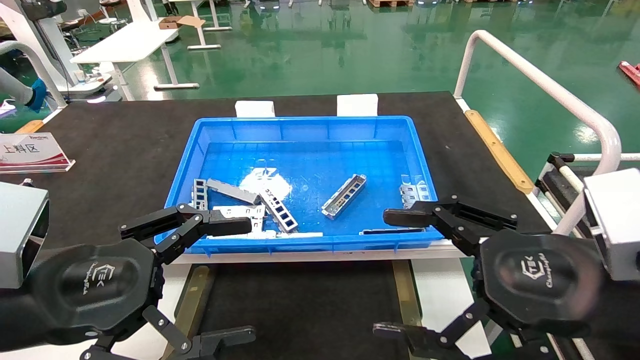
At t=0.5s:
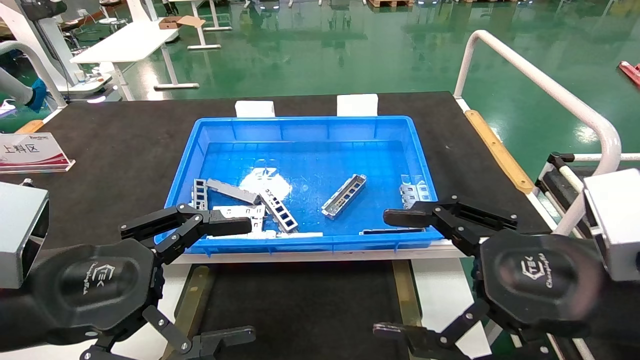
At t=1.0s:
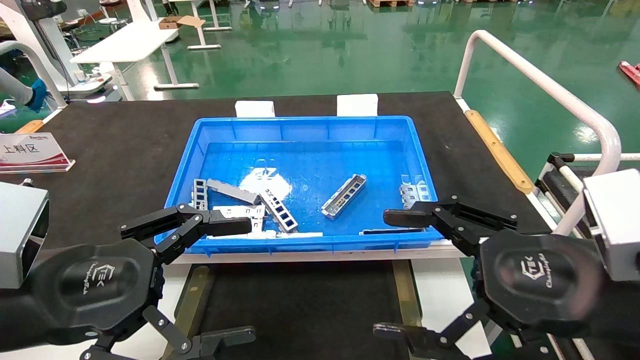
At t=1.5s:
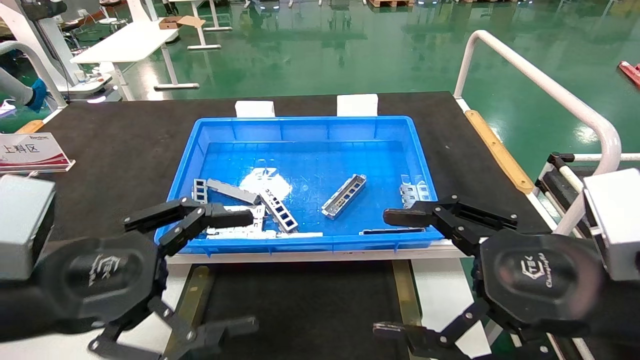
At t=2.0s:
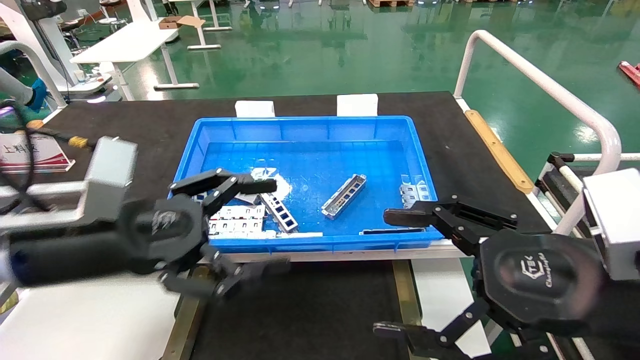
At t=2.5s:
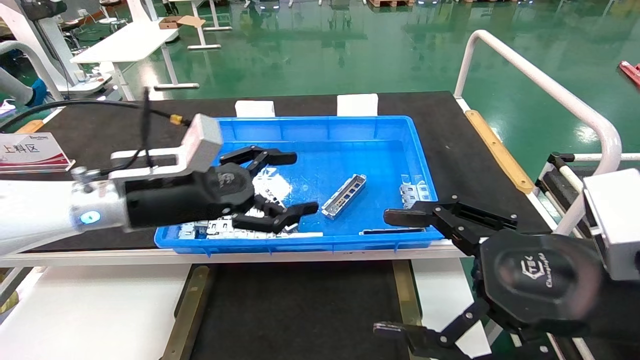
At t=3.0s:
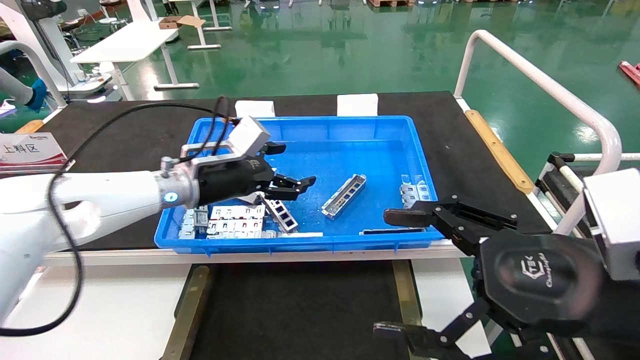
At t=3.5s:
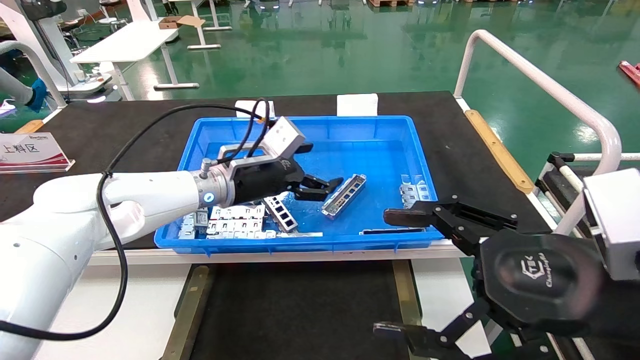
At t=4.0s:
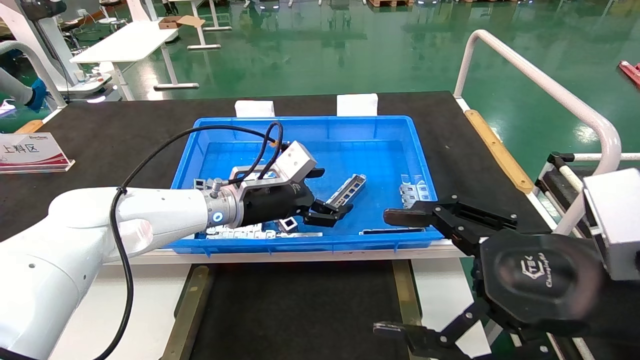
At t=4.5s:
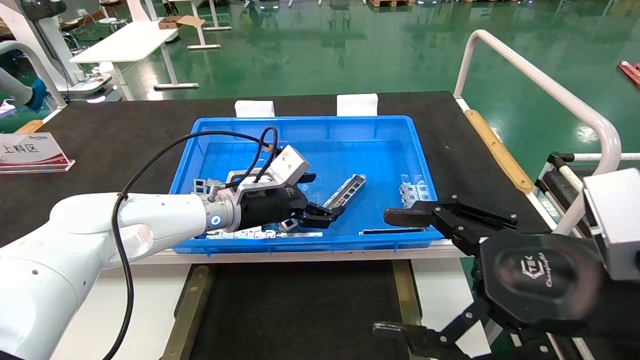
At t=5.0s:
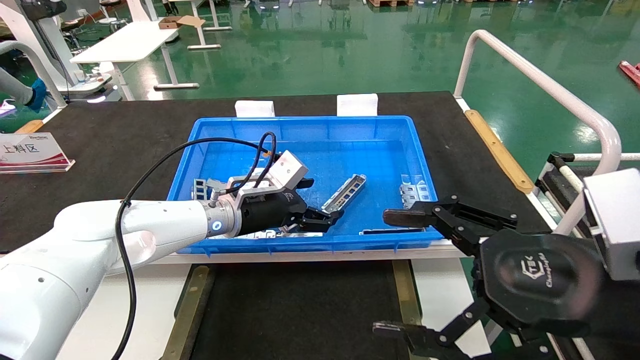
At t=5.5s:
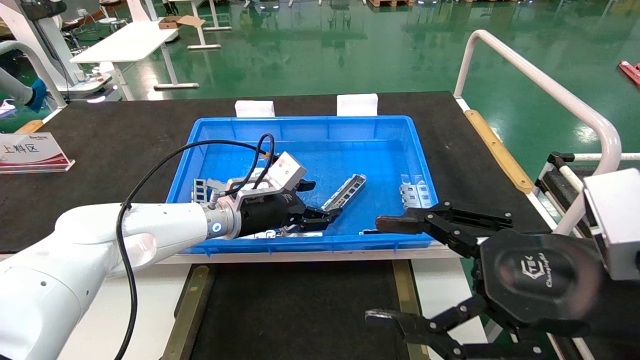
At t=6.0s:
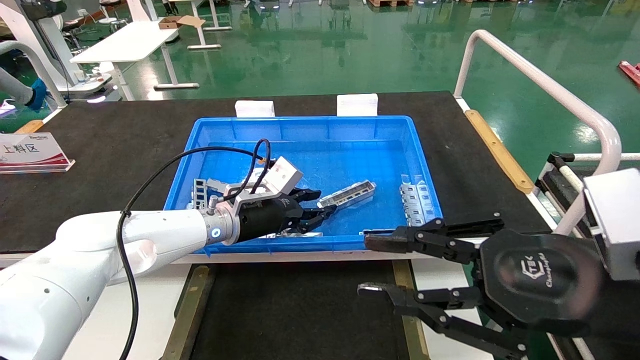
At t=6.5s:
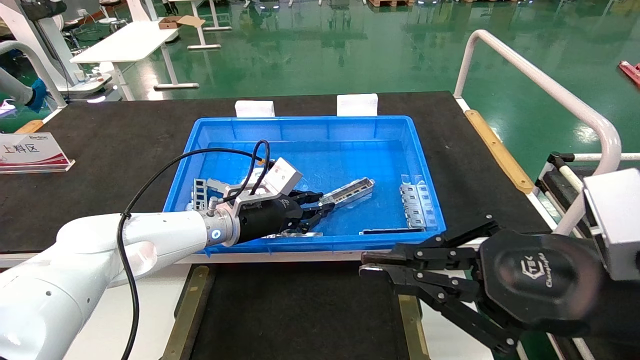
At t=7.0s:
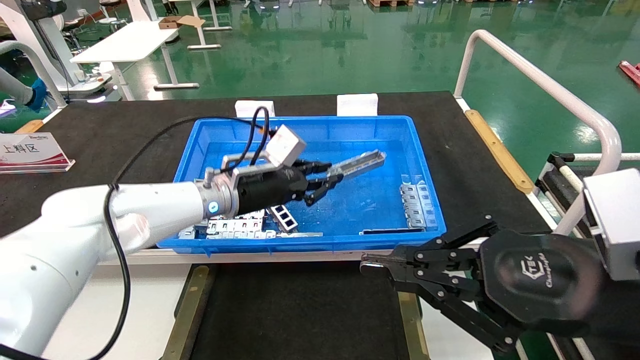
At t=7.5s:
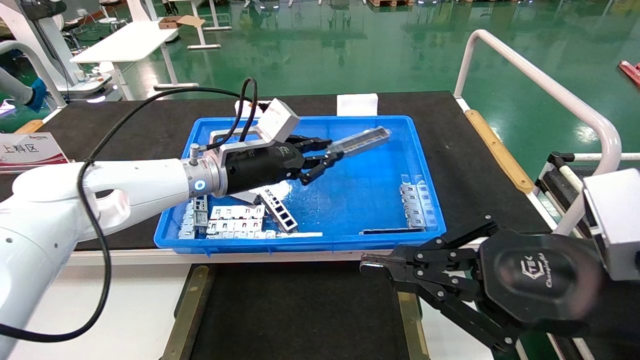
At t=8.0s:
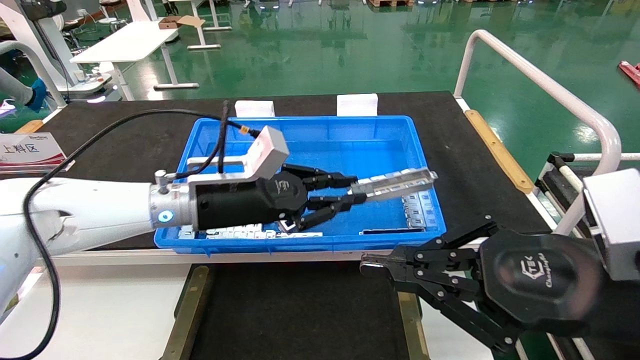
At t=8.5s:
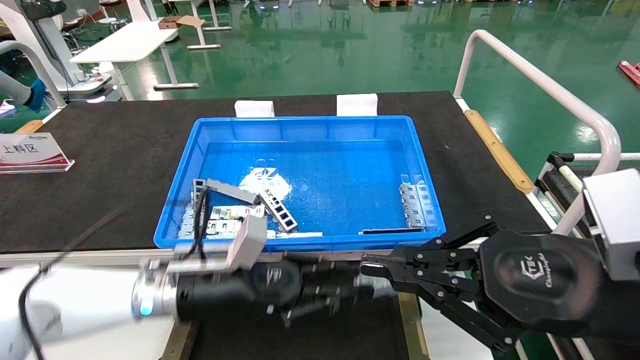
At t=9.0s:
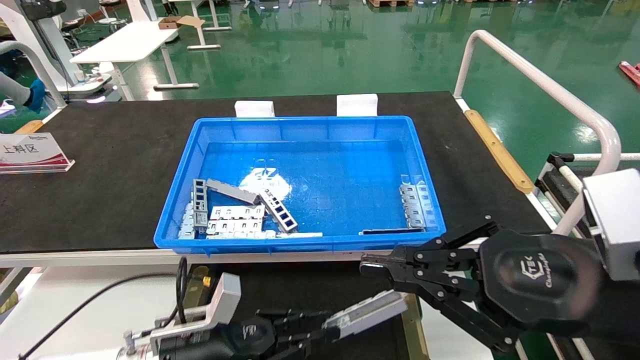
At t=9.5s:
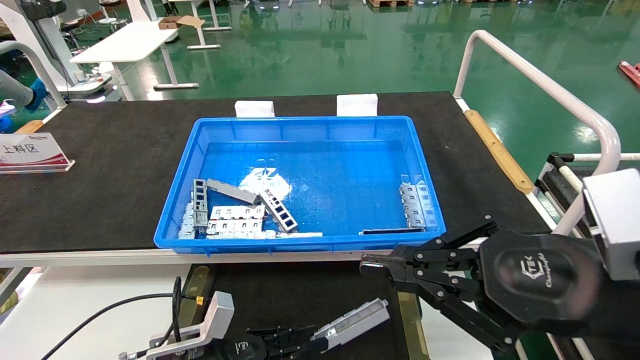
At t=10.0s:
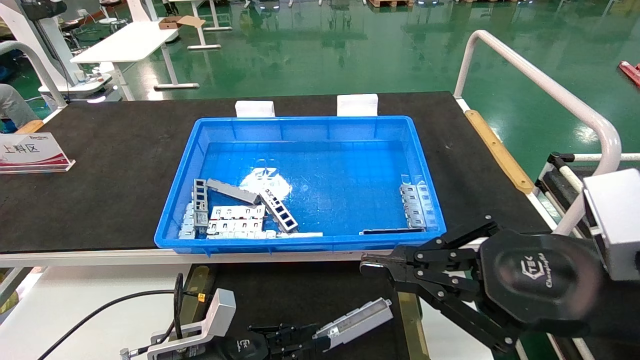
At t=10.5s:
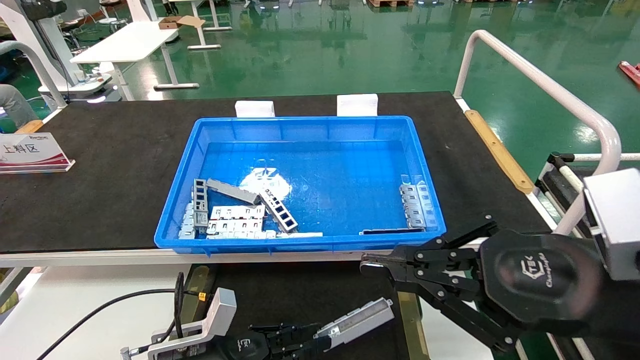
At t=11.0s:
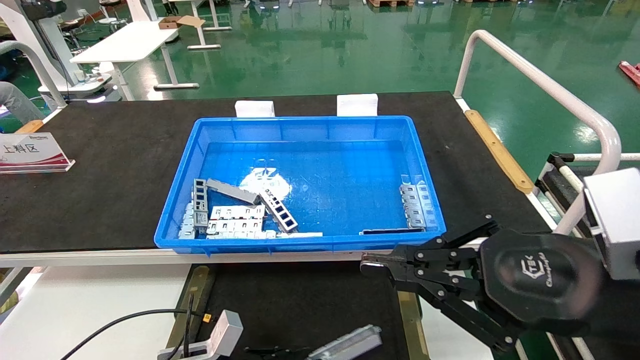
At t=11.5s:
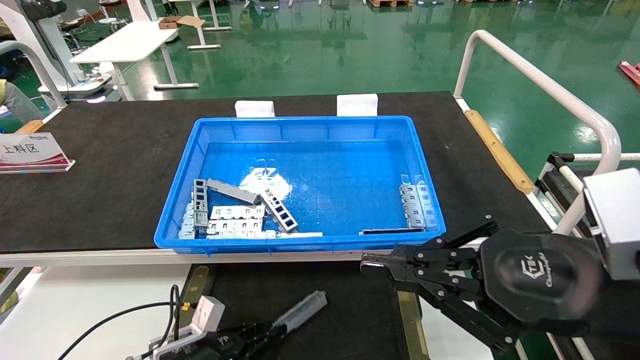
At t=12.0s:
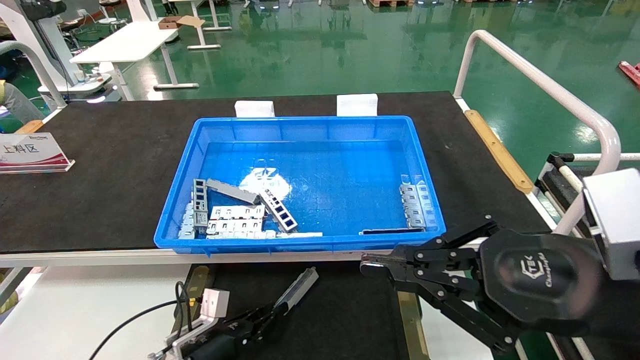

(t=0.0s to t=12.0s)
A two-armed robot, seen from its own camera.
Task of the whole recording: Grasp the part with one hand and place it on the black container.
Step, t=2.0s - t=6.0s: Pick up the front USB bracket from the feeding area.
t=0.0s - t=2.0s: The left gripper heads forward, covering about 5 cm.
t=2.0s - t=4.0s: The left gripper shifts roughly 25 cm forward and to the right.
t=4.0s - t=6.0s: The left gripper closes up. Meanwhile the right gripper closes up.
t=6.0s - t=8.0s: The right gripper closes, while the left gripper goes about 10 cm backward and upward, and closes.
t=8.0s - t=10.0s: The left gripper shifts roughly 25 cm downward.
t=10.0s - t=12.0s: The left gripper heads downward and forward, covering about 10 cm.

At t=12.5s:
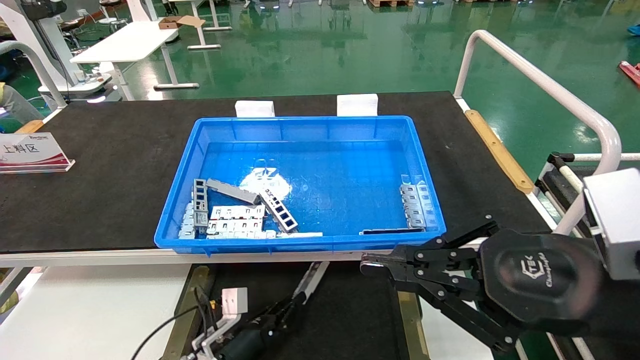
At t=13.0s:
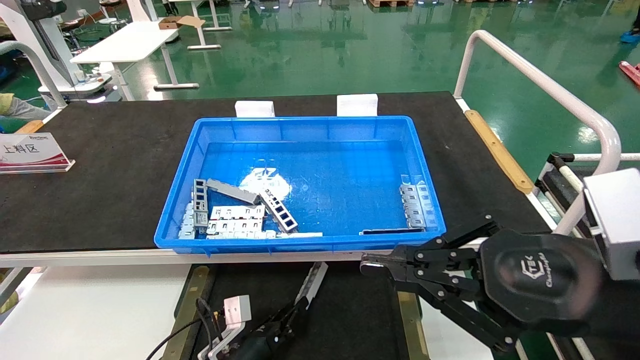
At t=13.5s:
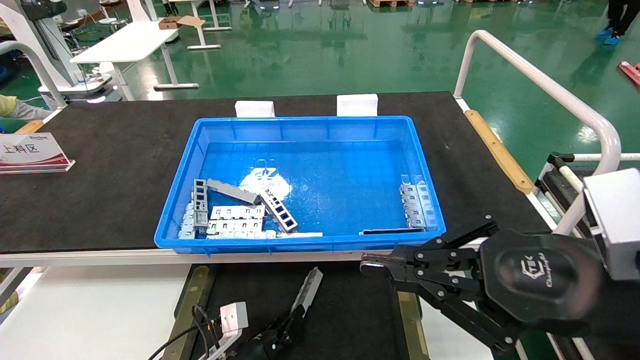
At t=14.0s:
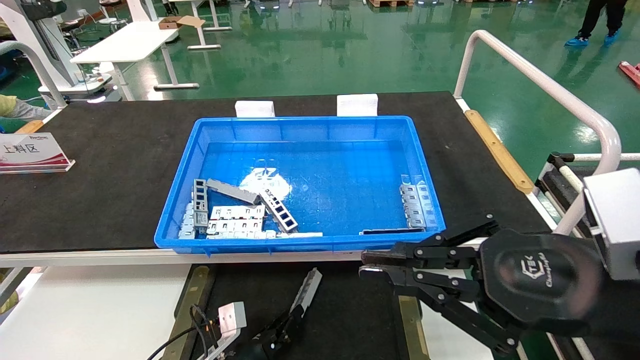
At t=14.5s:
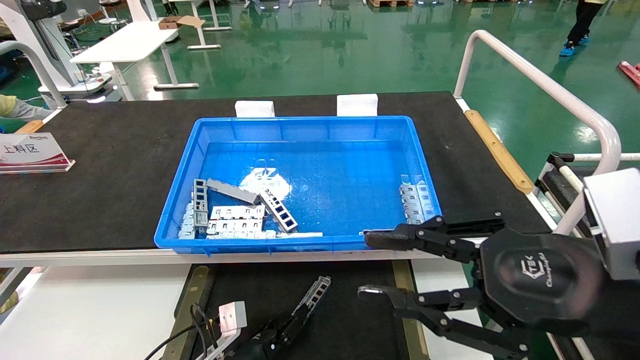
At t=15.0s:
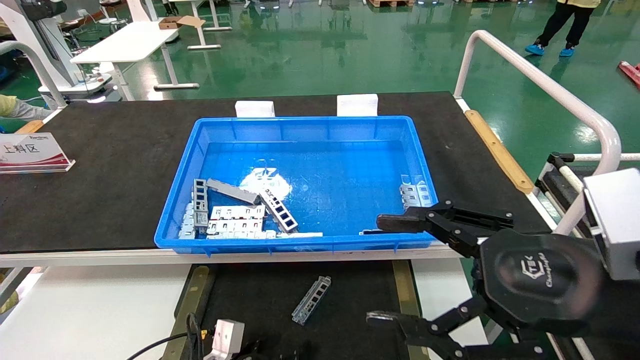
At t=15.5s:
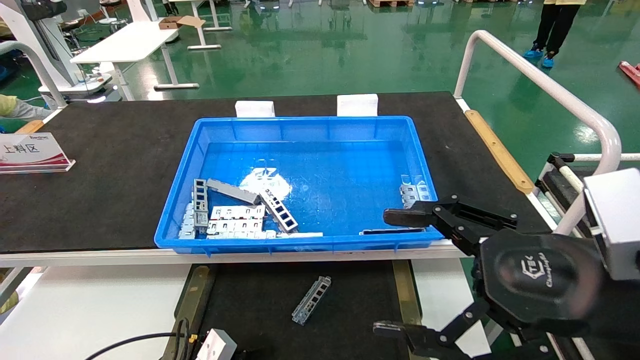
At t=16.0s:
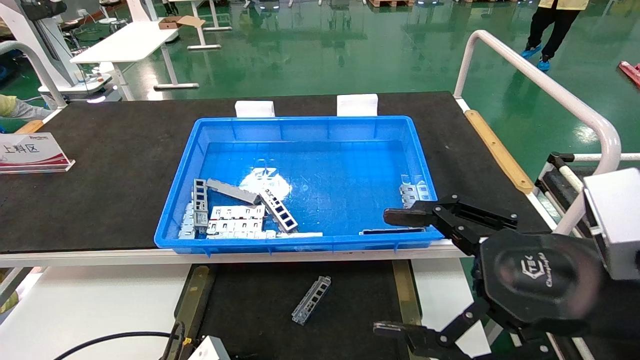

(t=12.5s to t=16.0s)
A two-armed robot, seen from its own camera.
Task of the whole recording: Grasp the part with one hand and place it on the black container.
Step, t=12.5s - t=14.5s: Place the front USB bracket into the box.
t=12.5s - t=14.5s: The grippers stay close to where they were, moving slightly.
t=14.5s - t=16.0s: The right gripper opens up; the left gripper shifts approximately 15 cm to the left, backward and upward, and opens.

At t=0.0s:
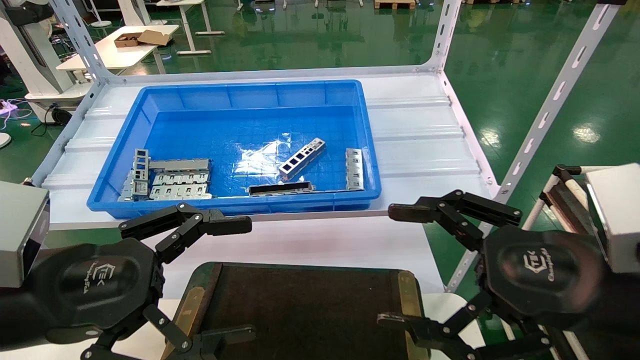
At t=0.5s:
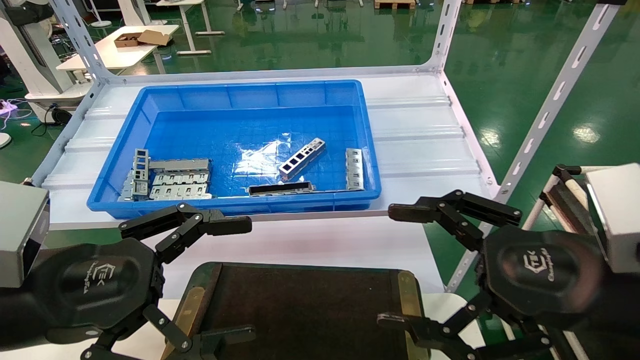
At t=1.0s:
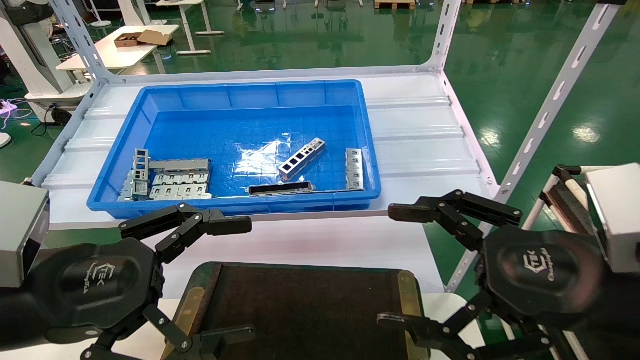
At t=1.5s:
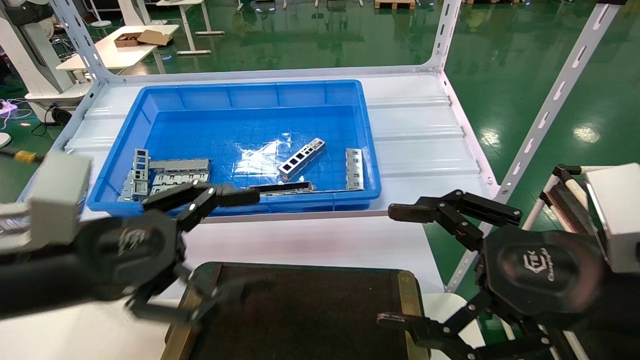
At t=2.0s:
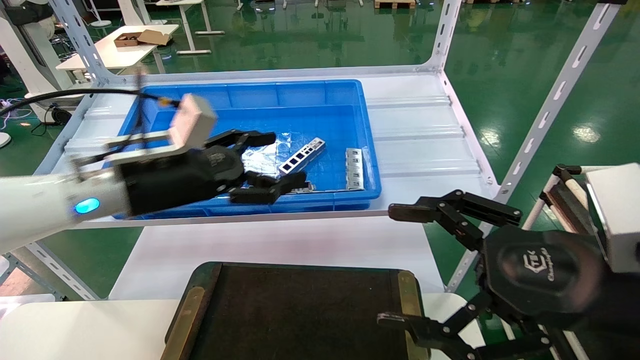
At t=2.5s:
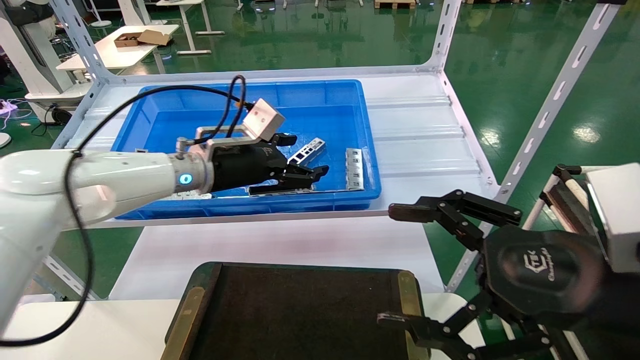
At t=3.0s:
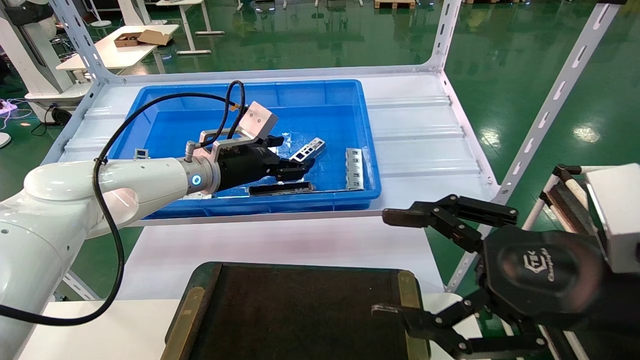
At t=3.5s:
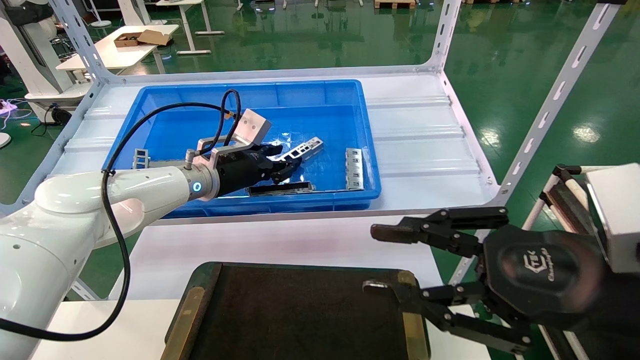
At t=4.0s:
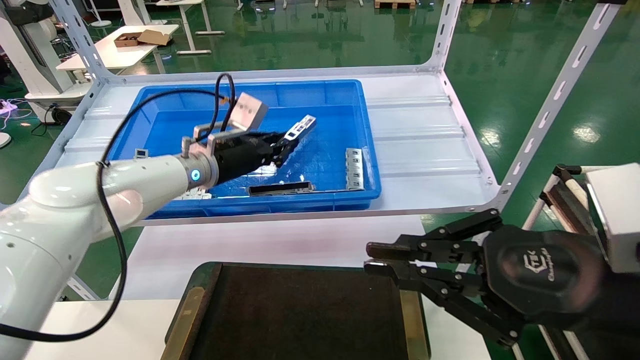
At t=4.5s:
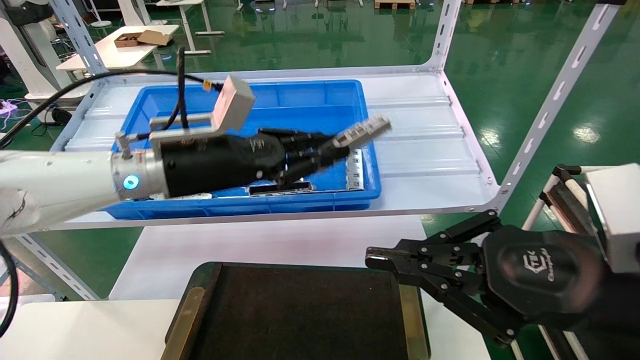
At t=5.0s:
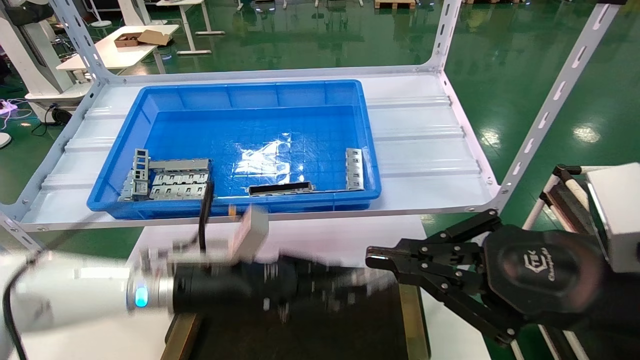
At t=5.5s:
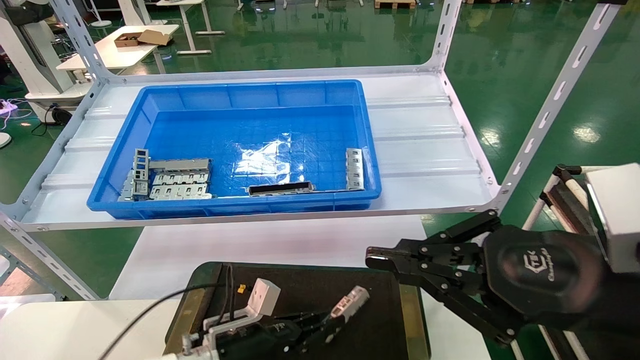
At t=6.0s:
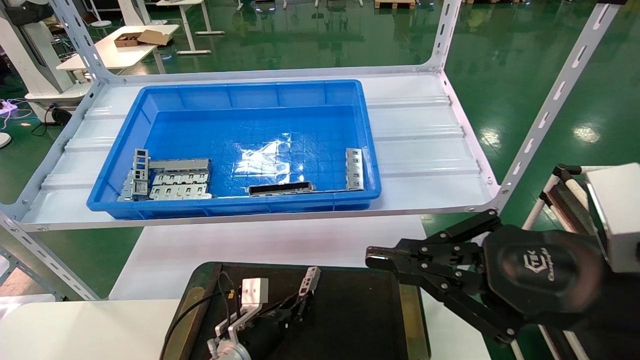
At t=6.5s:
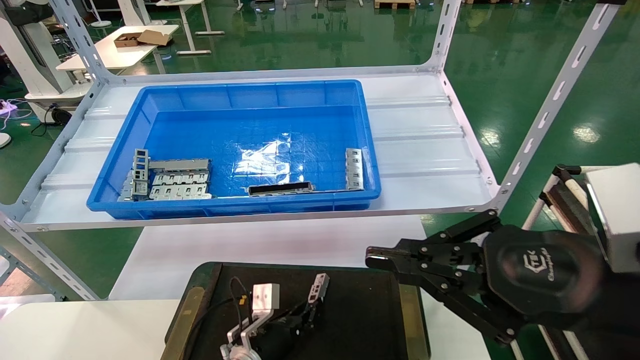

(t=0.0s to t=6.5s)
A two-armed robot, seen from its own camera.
Task of the whole recording: Grasp the part with one hand and place it on the black container.
Step, t=1.0s - t=4.0s: Pick up the front USB bracket from the feeding area.
t=0.0s - t=2.0s: The left gripper heads forward, covering some 20 cm.
t=2.0s - t=4.5s: The right gripper closes up. Meanwhile the left gripper goes forward and returns, roughly 15 cm each way, and closes up.
t=4.5s - t=6.5s: The left gripper travels downward by about 35 cm.
